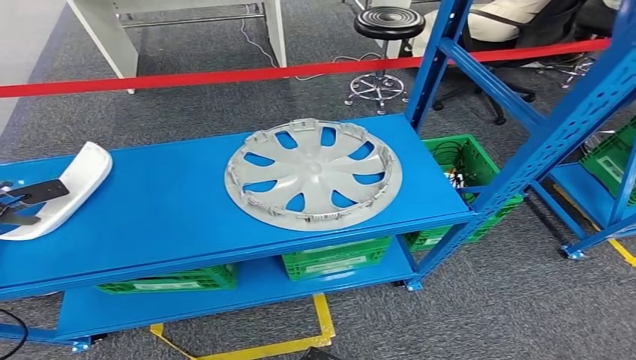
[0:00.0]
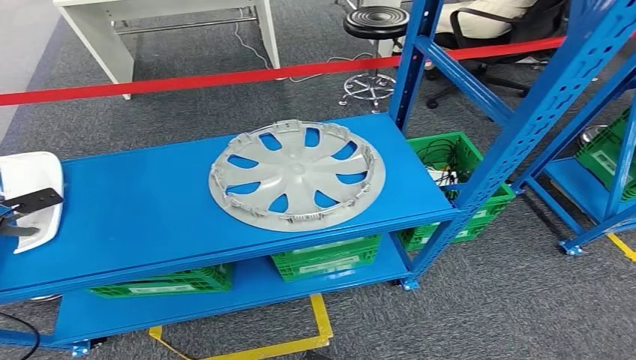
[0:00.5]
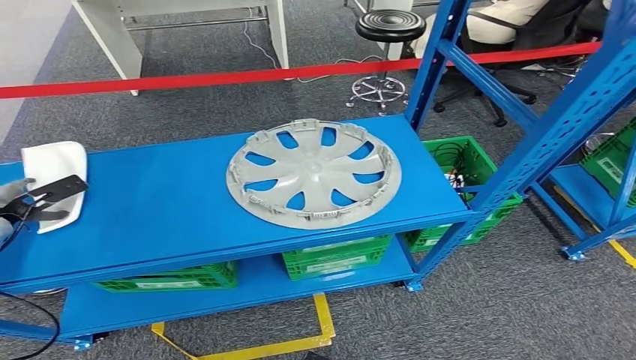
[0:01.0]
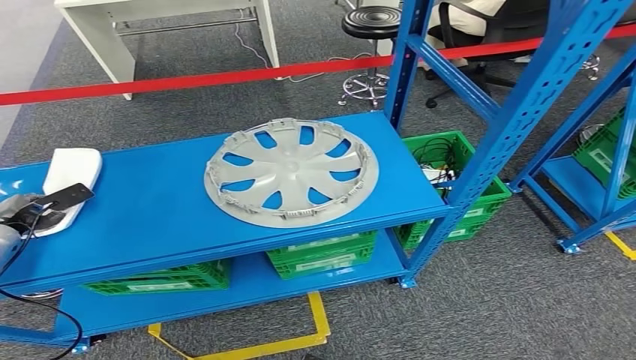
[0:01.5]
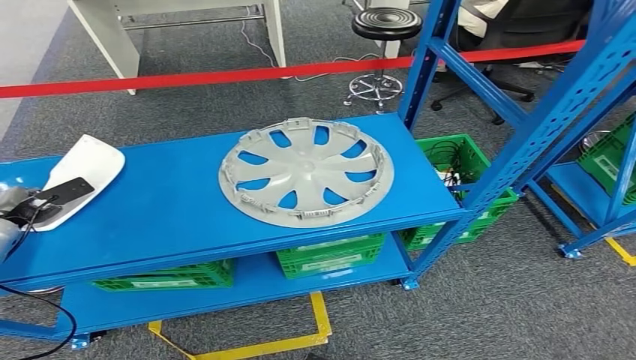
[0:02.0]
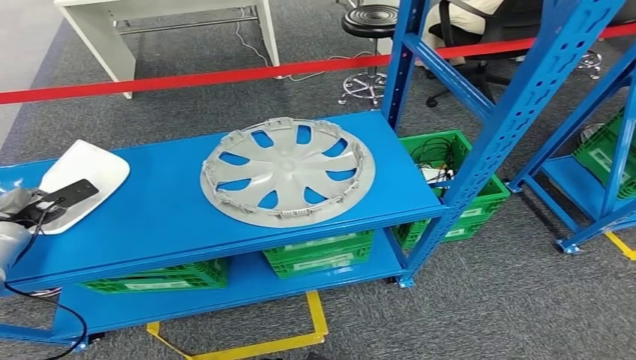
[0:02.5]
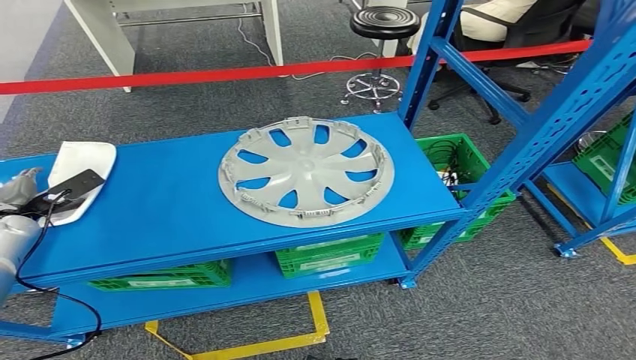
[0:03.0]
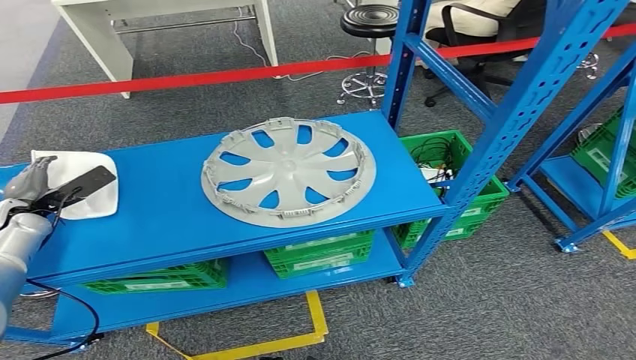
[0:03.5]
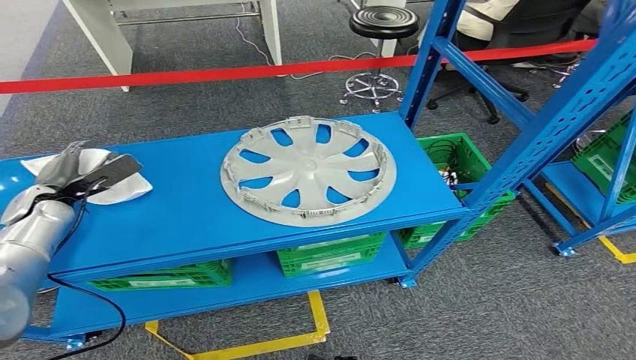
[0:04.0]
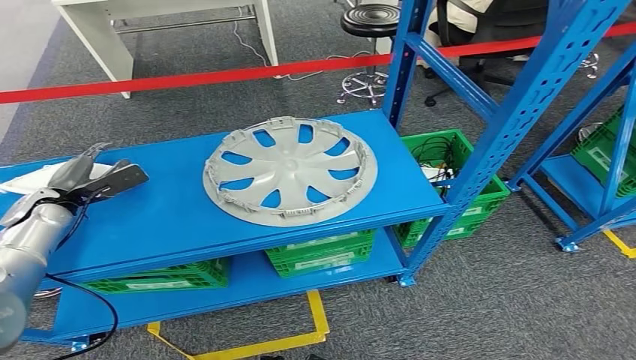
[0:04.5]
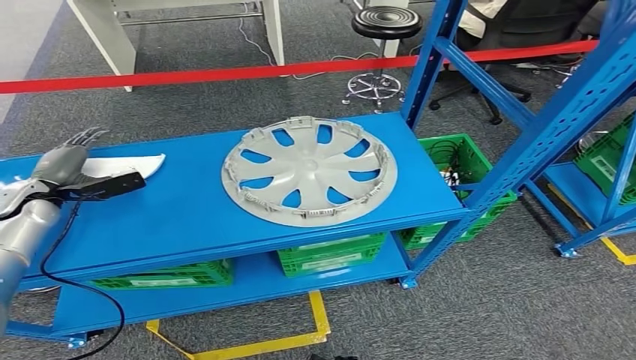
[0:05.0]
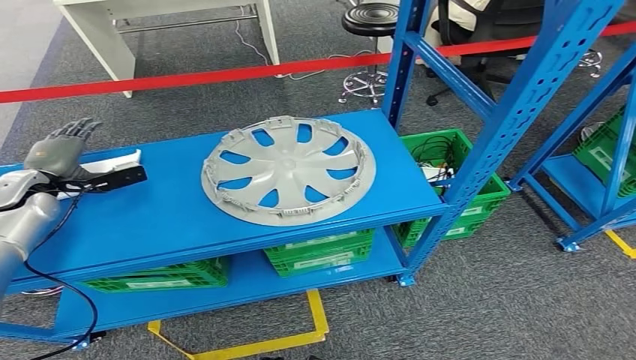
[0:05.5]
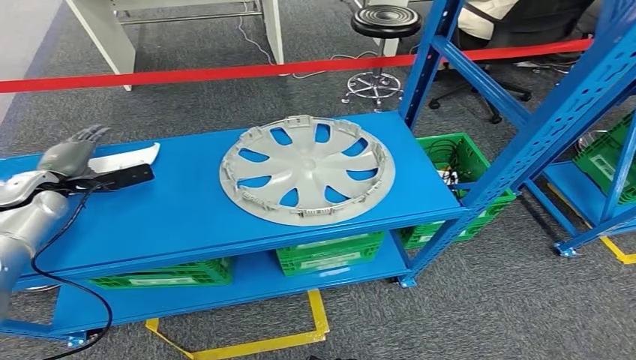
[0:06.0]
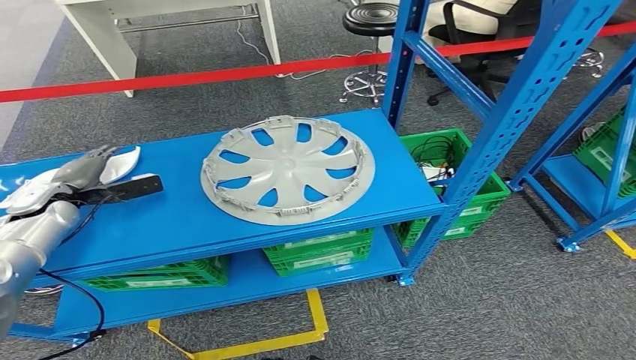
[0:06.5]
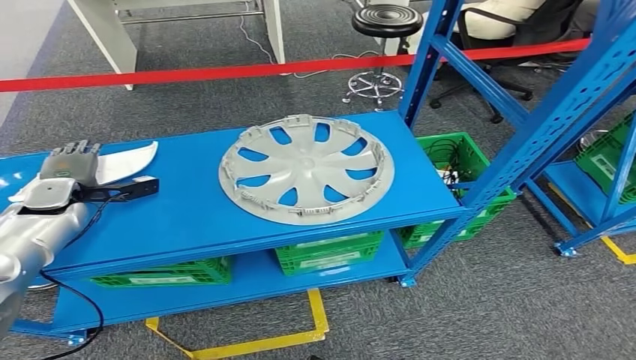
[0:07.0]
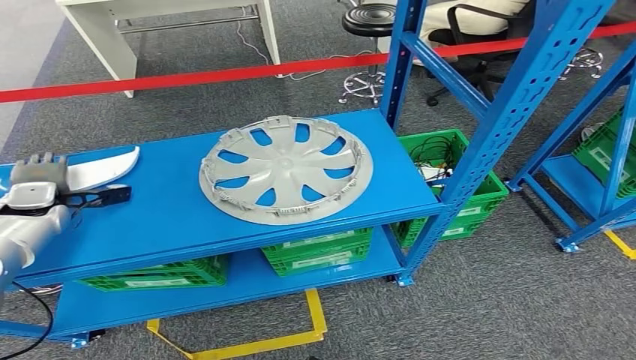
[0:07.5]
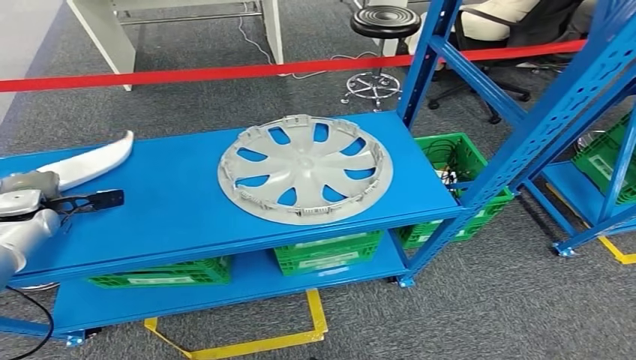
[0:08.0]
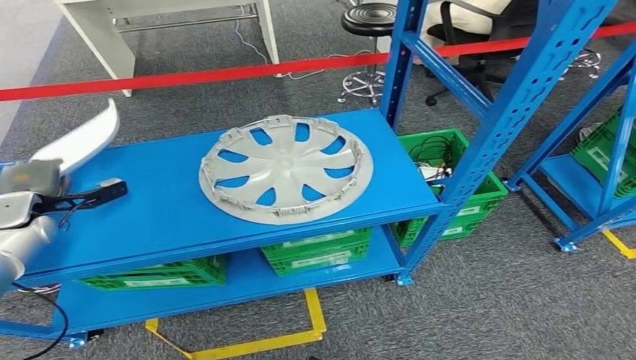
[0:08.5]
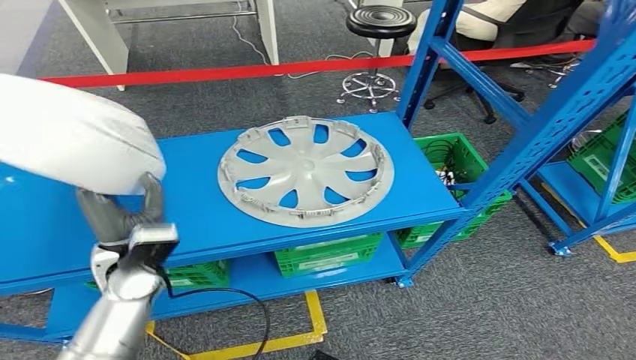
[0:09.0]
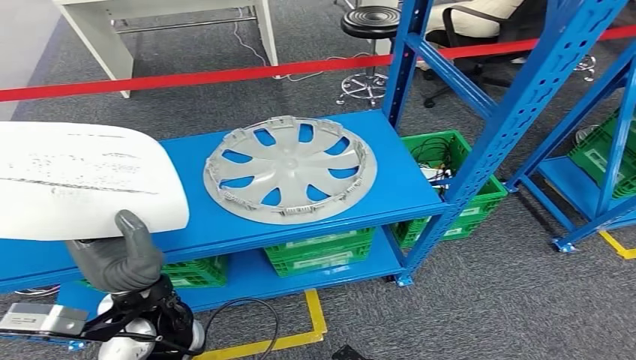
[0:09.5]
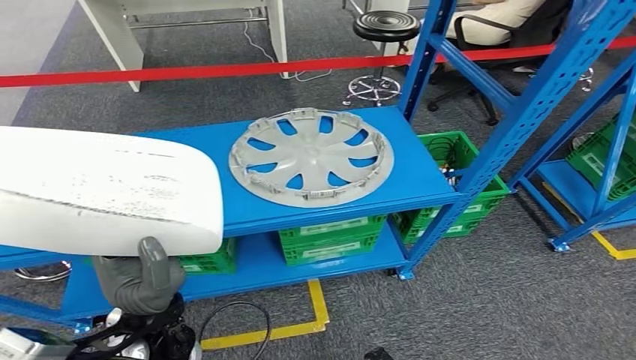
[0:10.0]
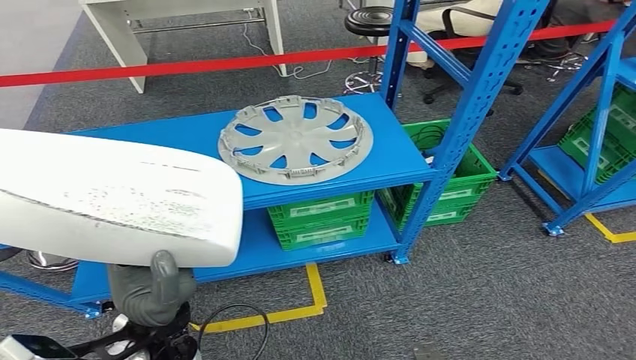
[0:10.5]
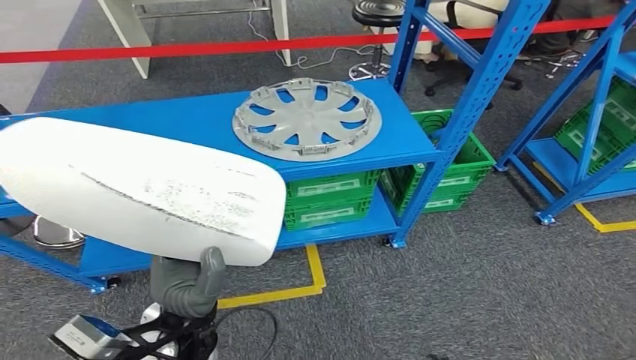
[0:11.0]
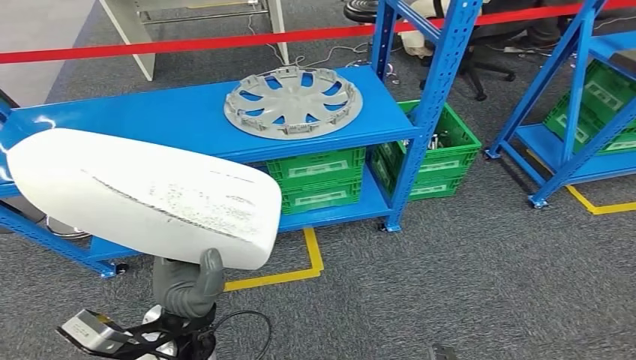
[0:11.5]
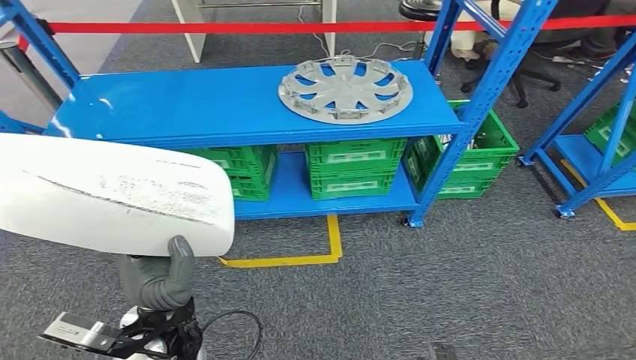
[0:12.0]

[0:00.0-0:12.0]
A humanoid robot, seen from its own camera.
Step, 0:00.0 to 0:10.0: Take small components from the rack.
0:00.0 to 0:02.0: The left hand moves roughly 5 cm.
0:02.0 to 0:04.0: The left hand shifts roughly 10 cm to the right.

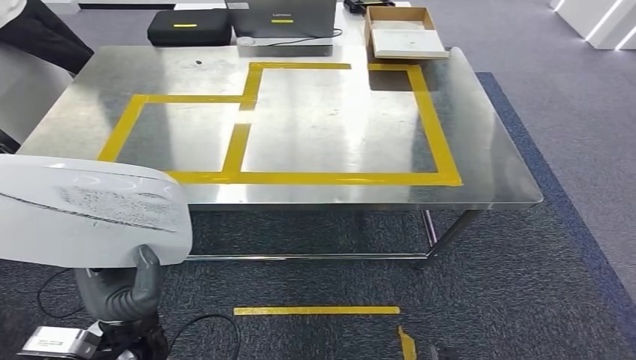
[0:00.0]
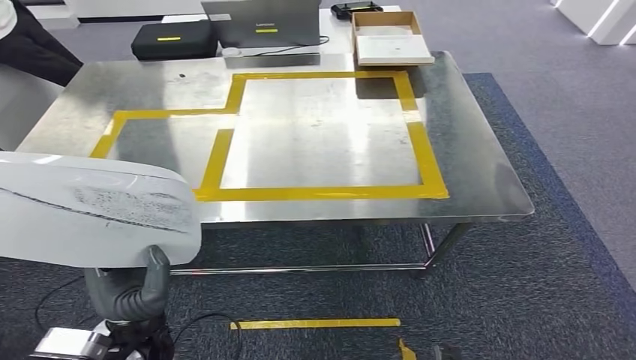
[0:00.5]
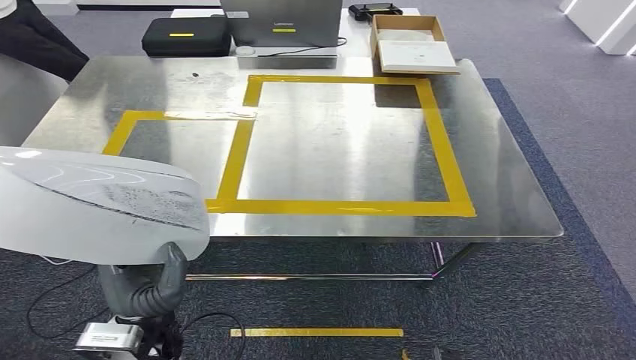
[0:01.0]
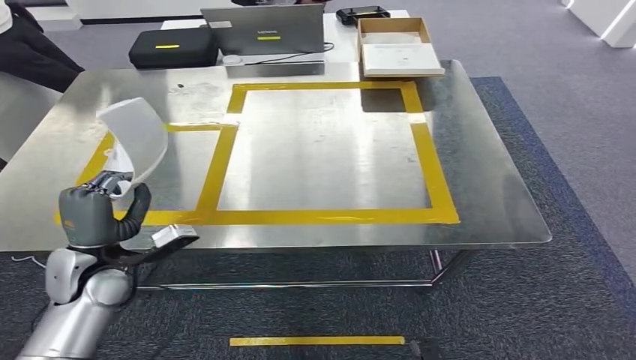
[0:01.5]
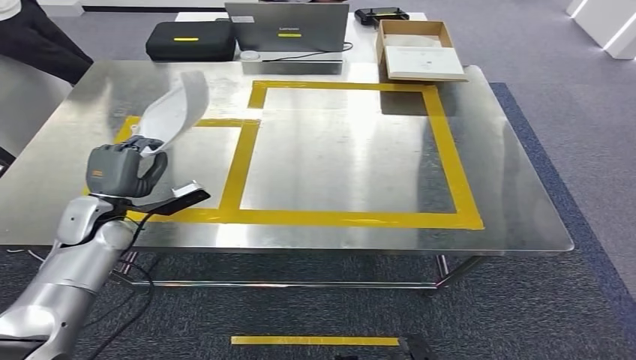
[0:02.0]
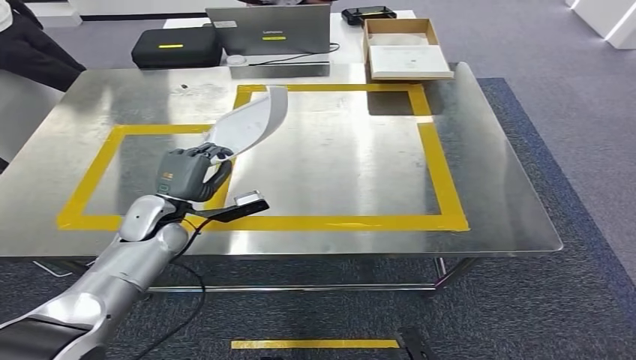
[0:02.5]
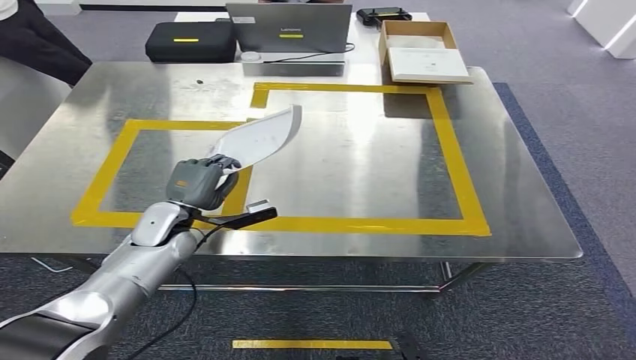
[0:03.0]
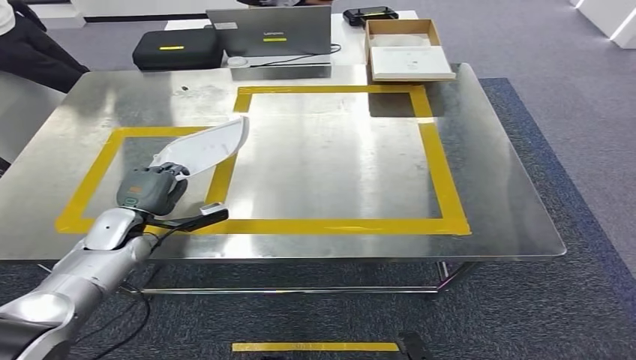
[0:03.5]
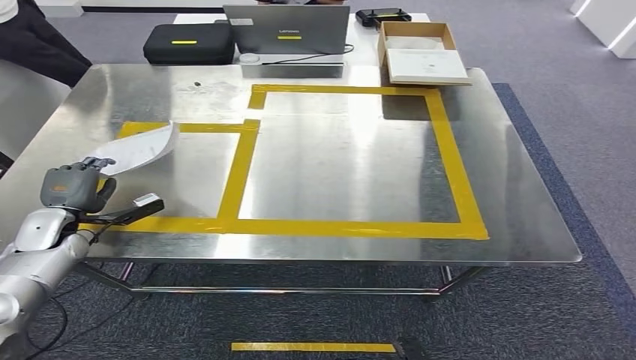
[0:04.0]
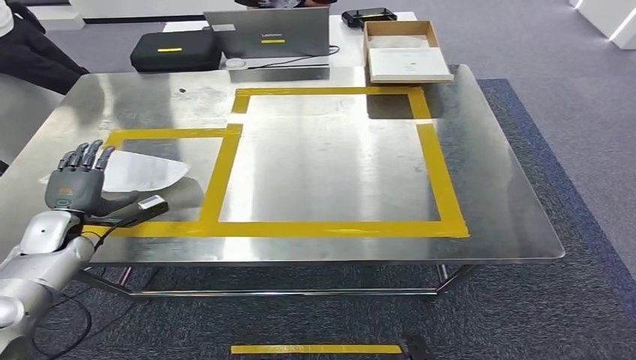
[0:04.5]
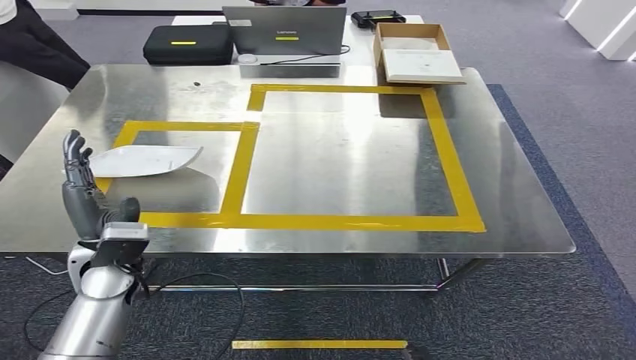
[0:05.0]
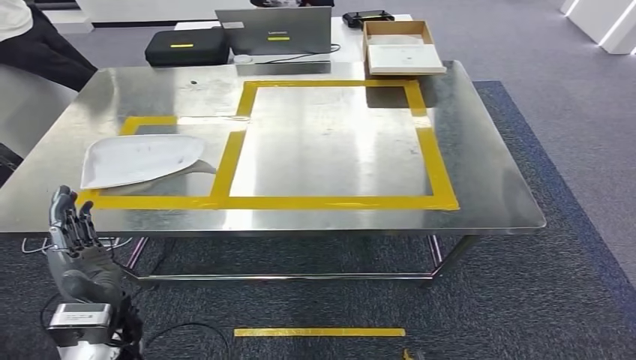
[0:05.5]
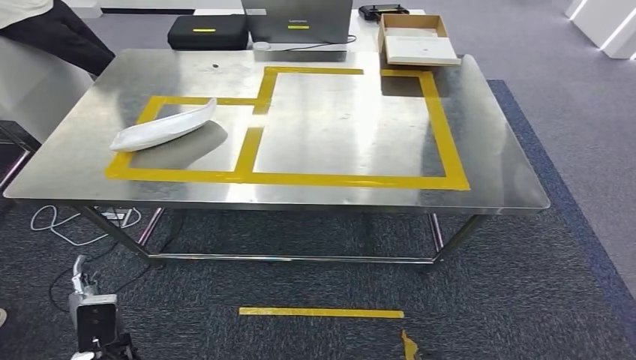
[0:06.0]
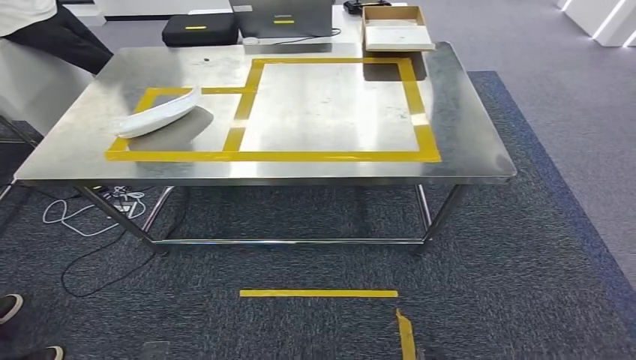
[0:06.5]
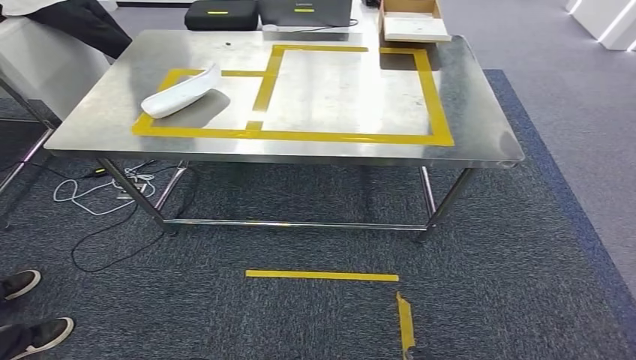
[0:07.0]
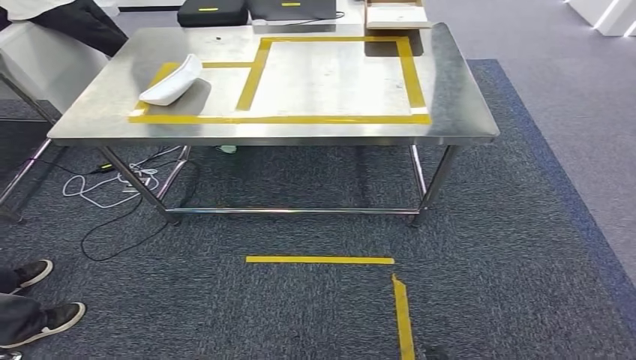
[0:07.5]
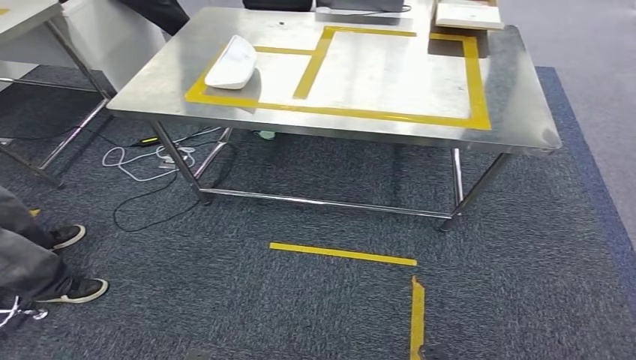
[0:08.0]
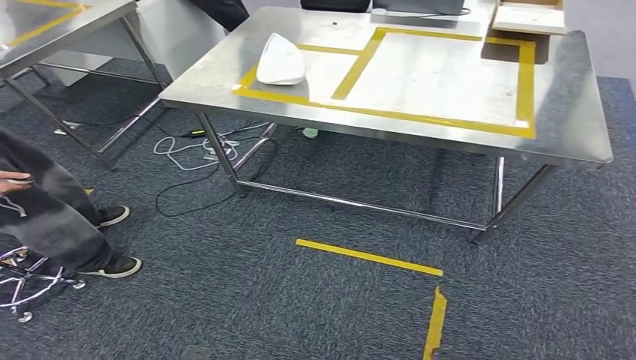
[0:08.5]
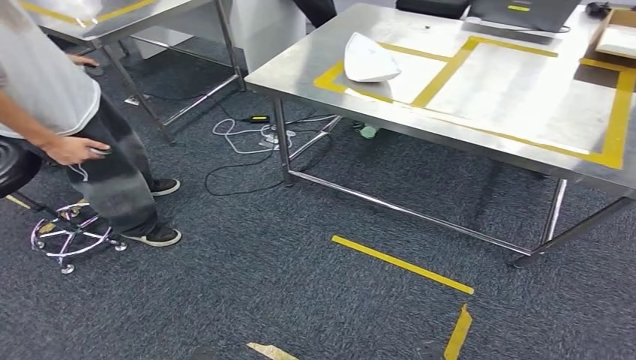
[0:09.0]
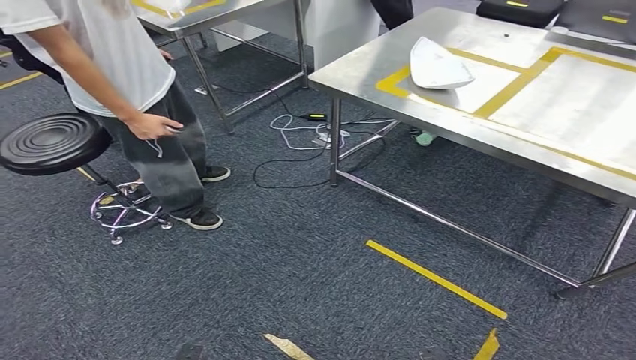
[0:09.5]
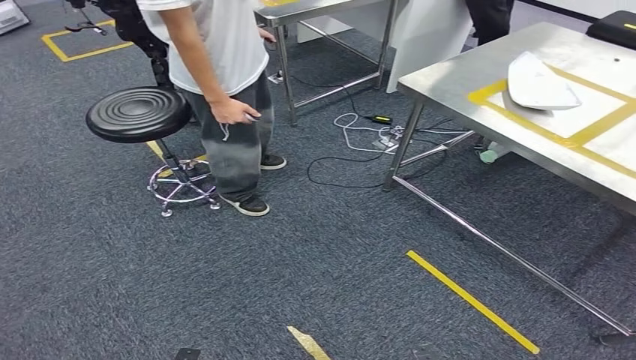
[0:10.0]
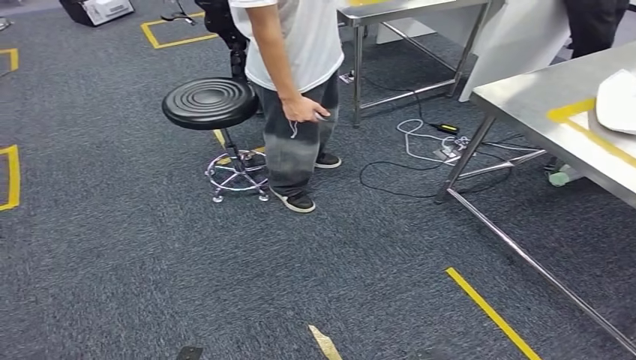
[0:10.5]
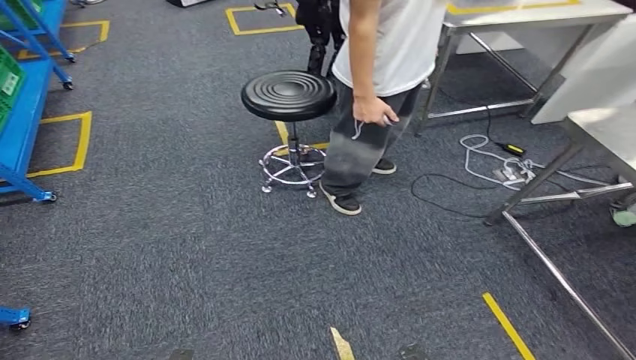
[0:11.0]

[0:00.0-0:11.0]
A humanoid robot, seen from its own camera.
Step, 0:01.5 to 0:06.0: Insert the small parts into the corresponding holes on the workbench.
